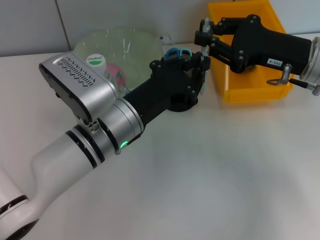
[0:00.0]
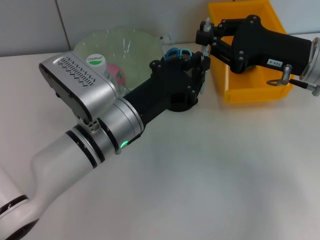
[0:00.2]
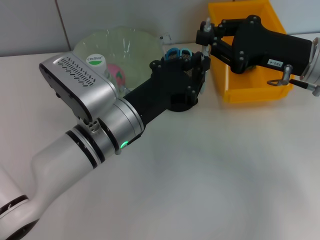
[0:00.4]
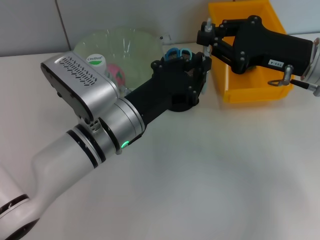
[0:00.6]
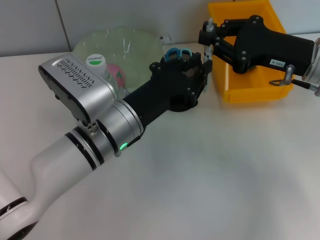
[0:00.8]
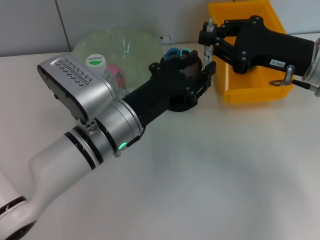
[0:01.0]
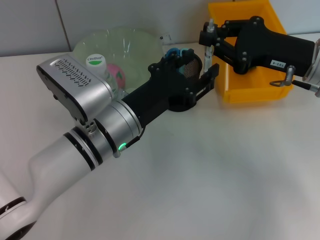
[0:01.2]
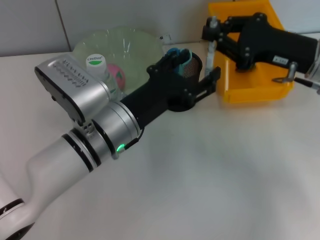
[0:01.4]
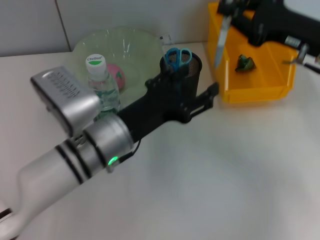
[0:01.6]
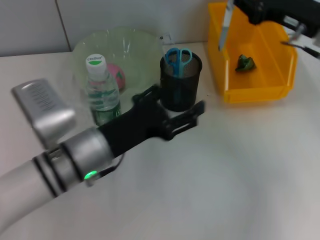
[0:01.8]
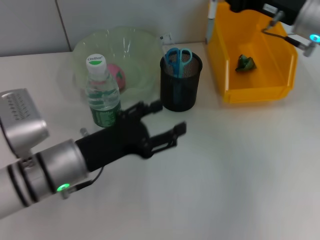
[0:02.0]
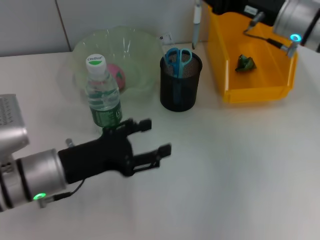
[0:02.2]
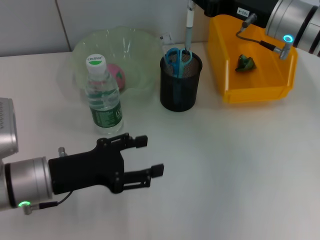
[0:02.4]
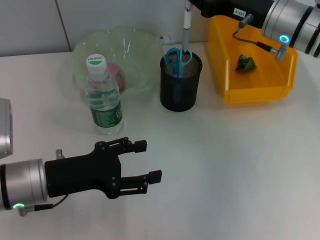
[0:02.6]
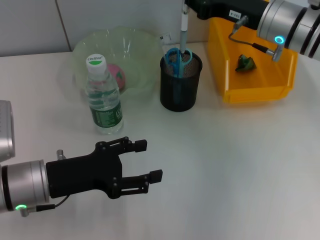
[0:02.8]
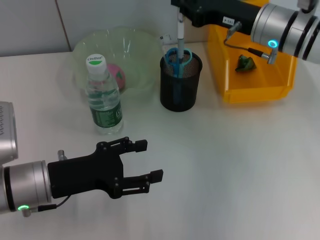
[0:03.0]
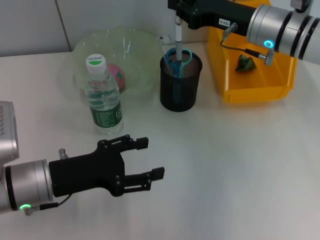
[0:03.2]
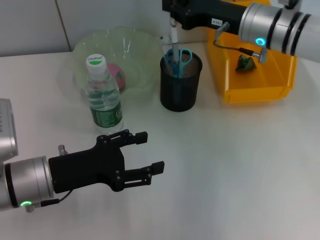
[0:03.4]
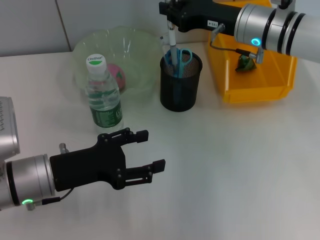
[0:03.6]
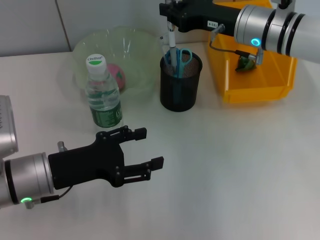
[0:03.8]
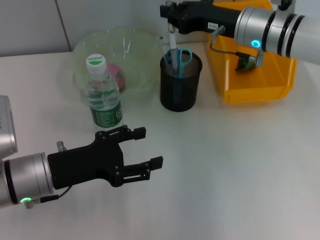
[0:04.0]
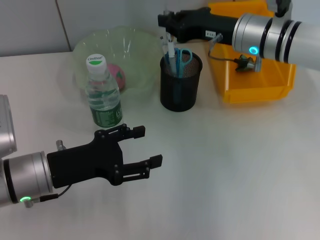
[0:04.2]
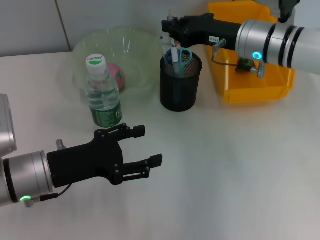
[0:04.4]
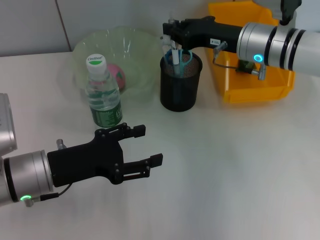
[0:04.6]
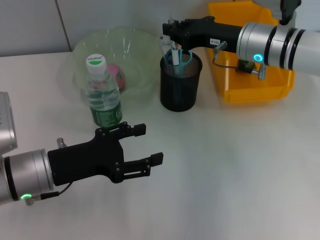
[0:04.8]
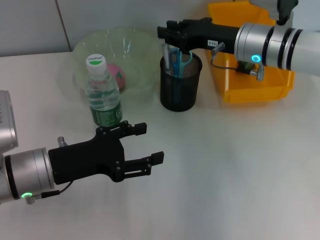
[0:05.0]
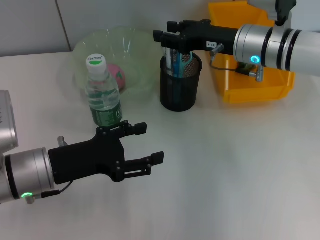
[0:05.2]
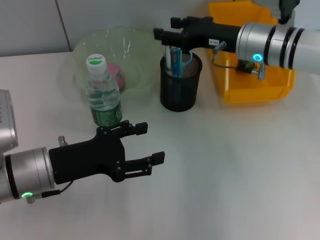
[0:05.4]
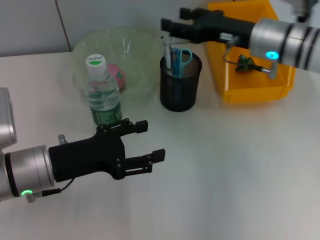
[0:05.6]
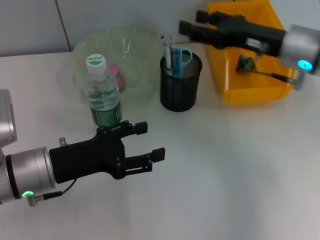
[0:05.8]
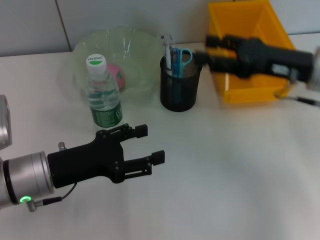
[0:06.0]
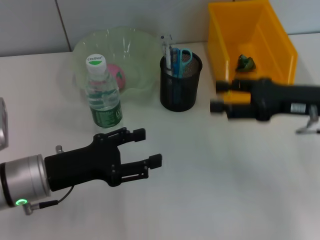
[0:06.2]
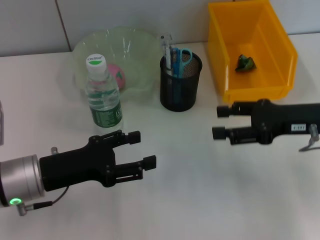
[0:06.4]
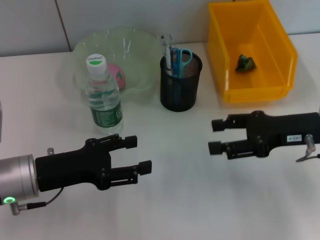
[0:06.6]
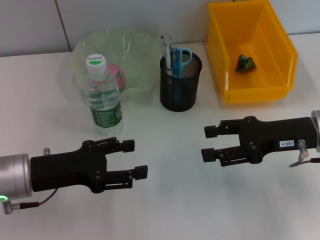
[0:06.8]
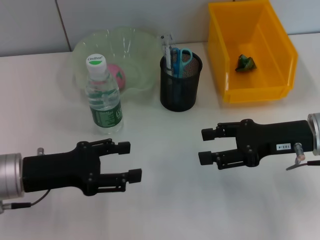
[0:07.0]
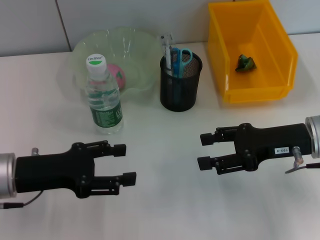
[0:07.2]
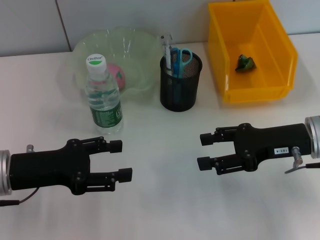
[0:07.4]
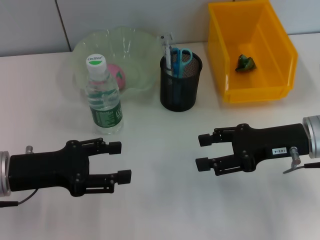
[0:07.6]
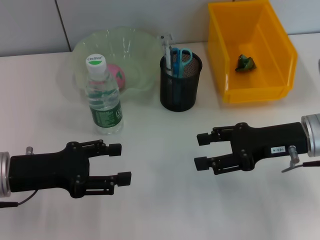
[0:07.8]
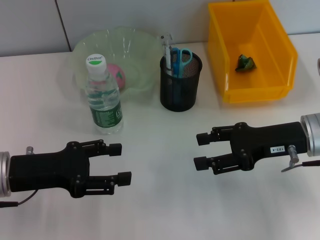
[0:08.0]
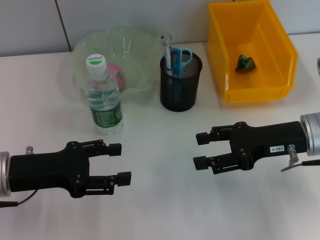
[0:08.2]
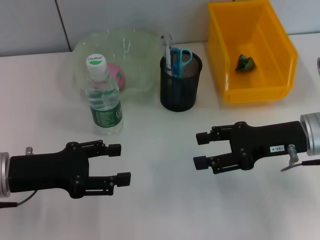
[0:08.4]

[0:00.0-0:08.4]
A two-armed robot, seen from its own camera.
Step, 0:01.6 to 0:05.2: Place the gray spring-action pen into the pen holder with the right hand.
0:00.0 to 0:01.4: The left gripper opens its fingers.
0:01.4 to 0:02.8: The left gripper shifts some 10 cm to the left. The right gripper travels forward by about 5 cm.
0:02.8 to 0:04.2: The grippers move only a little.
0:04.2 to 0:05.6: The right gripper opens up.
0:05.6 to 0:07.0: The right gripper travels backward and to the right by approximately 10 cm.
0:07.0 to 0:08.4: There are only small adjustments of the grippers.

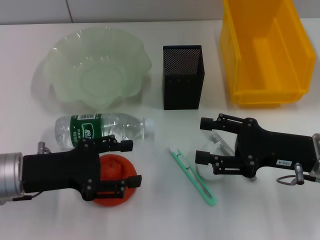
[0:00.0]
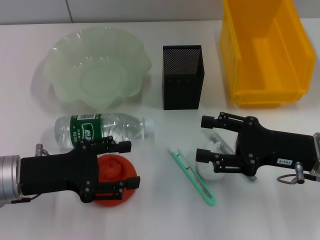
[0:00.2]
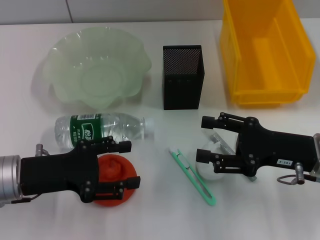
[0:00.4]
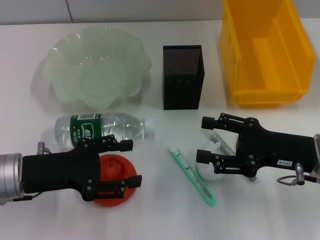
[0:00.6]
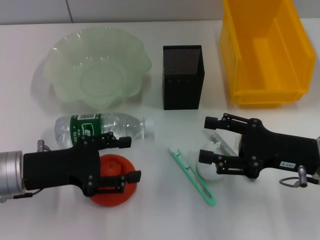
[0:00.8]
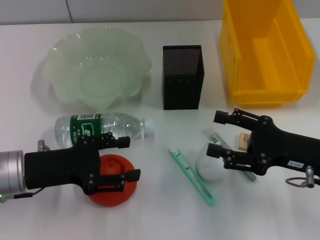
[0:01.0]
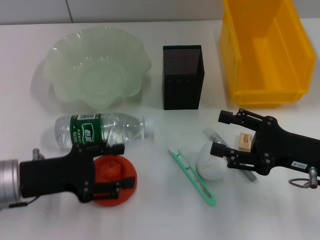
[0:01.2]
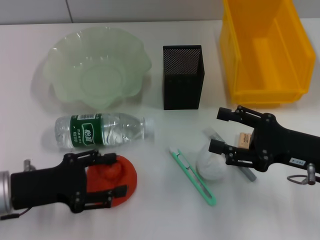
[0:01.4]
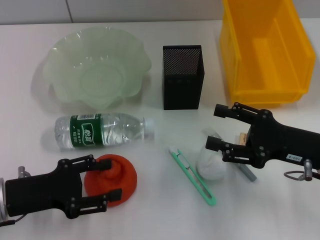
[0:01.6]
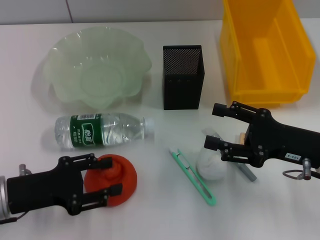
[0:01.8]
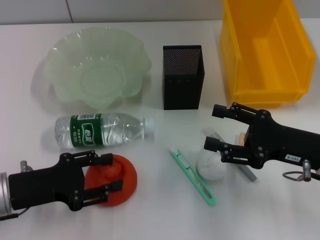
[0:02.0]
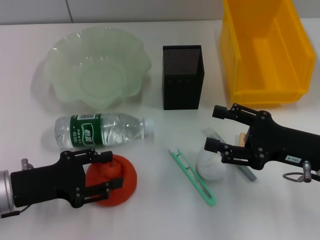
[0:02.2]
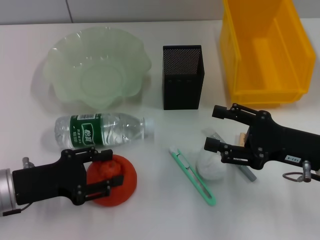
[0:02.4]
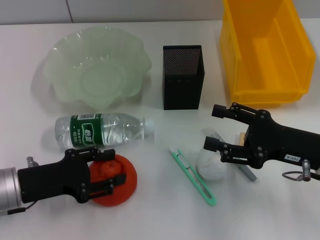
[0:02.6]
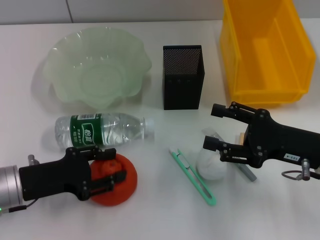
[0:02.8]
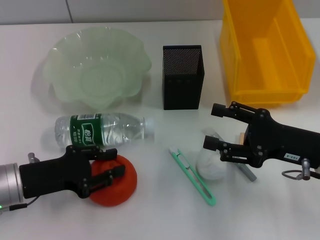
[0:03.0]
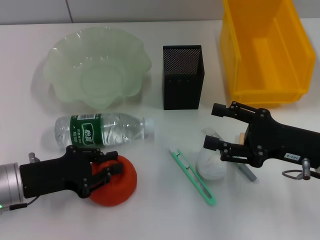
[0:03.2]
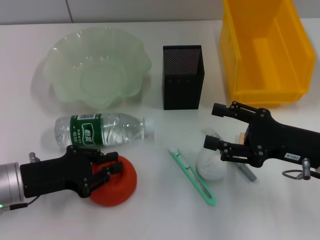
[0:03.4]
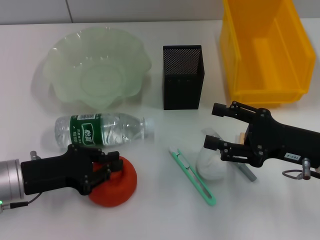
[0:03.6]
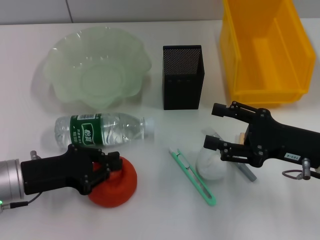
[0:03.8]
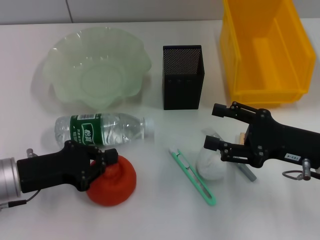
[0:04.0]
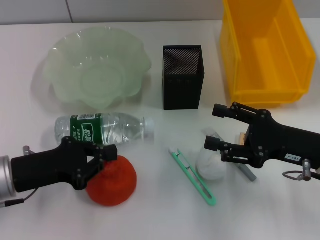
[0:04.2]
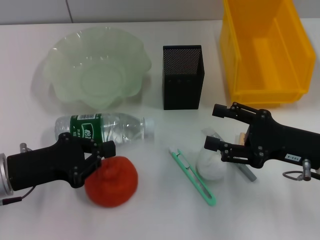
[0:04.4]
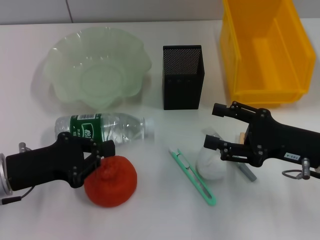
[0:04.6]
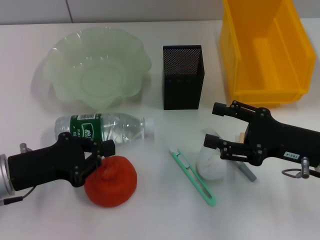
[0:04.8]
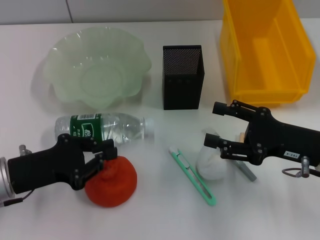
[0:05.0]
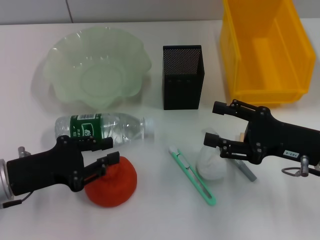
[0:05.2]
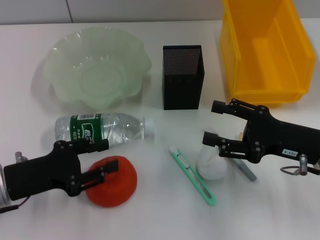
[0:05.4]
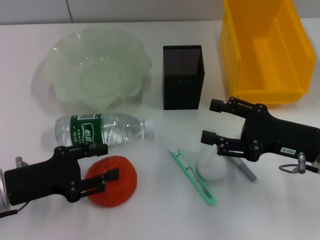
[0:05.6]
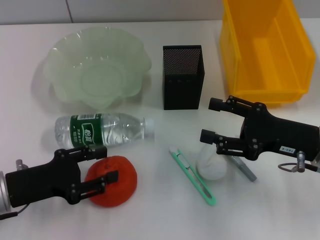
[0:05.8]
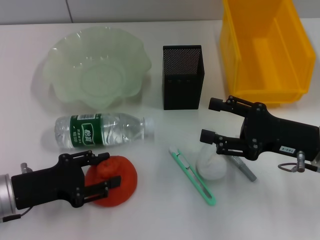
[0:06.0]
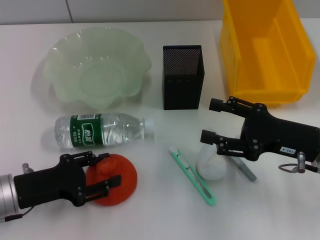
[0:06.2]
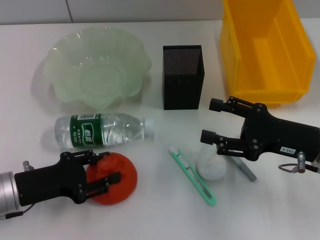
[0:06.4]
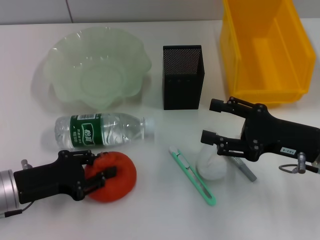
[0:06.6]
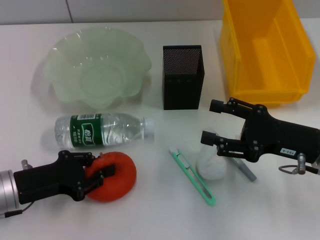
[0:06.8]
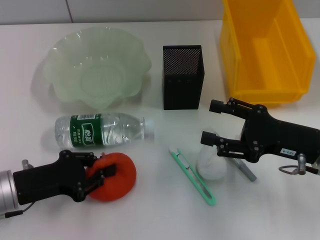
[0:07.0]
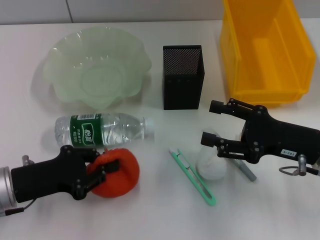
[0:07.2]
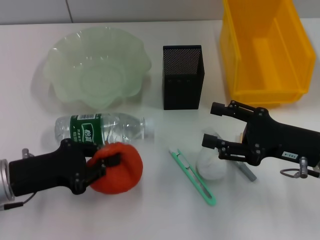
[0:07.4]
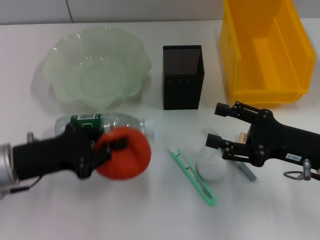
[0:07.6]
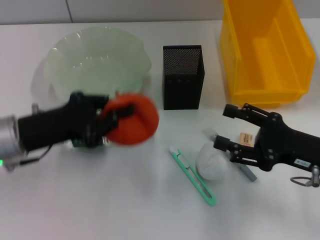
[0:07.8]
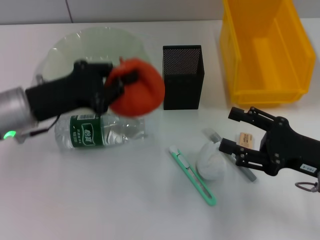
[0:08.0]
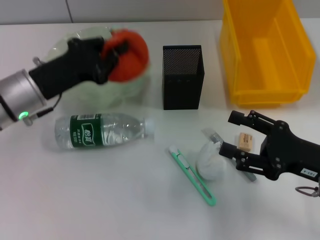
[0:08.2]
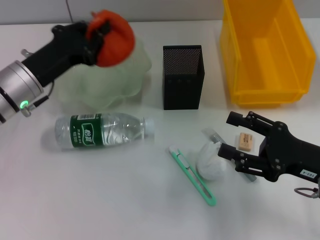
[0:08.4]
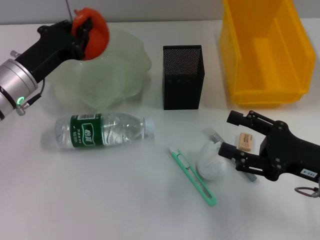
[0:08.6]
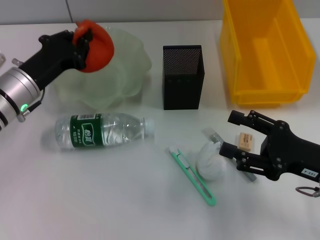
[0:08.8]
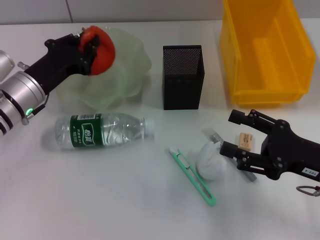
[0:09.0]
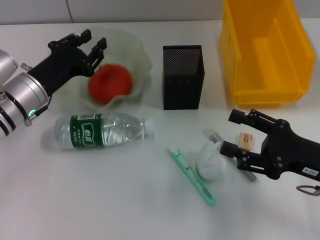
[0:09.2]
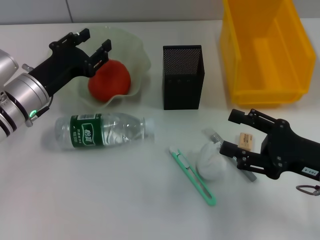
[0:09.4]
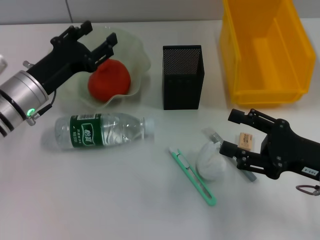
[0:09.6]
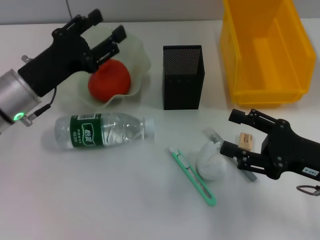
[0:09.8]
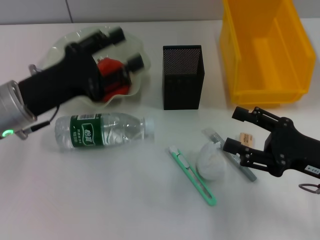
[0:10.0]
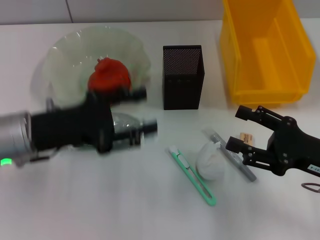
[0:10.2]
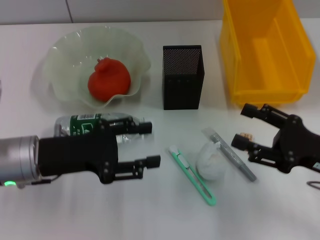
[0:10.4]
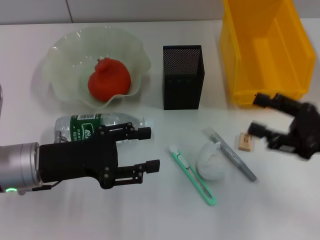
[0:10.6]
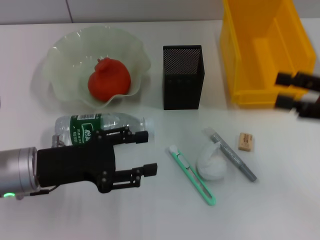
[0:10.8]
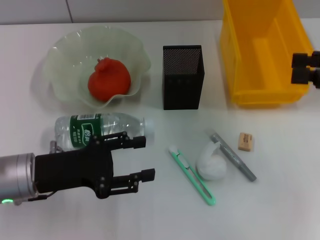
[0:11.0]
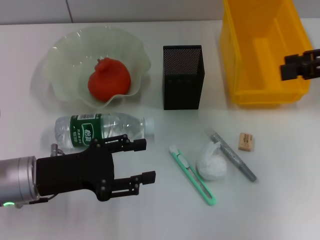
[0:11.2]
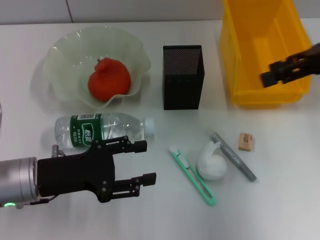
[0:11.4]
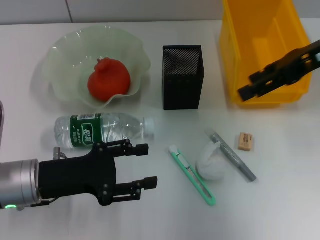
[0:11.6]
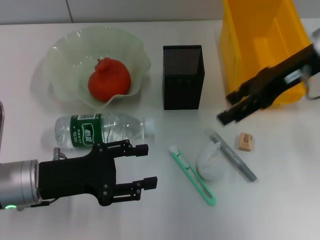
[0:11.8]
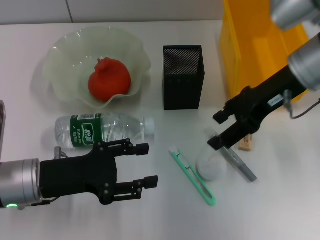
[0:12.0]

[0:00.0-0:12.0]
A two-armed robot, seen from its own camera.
Step, 0:00.0 to 0:06.6: Grab the orange with the left hand.
Step, 0:07.0 to 0:09.2: Place the orange into the fruit bowl with the left hand.
0:00.0 to 0:03.0: The grippers stay close to where they were, moving slightly.
0:03.0 to 0:04.4: The left gripper closes.
0:04.4 to 0:06.0: The left gripper opens up.
0:06.0 to 0:07.6: The left gripper closes its fingers.
0:07.6 to 0:09.0: The left gripper heads forward, covering approximately 10 cm.
0:09.0 to 0:10.4: The left gripper heads backward, covering about 10 cm, and opens.
0:10.4 to 0:12.0: The right gripper moves forward, upward and to the left, roughly 20 cm.

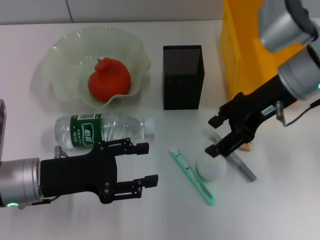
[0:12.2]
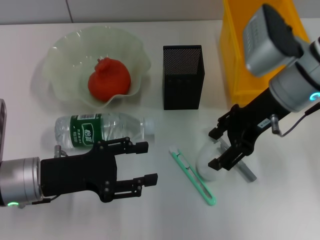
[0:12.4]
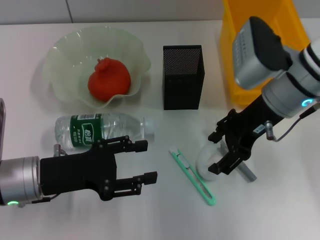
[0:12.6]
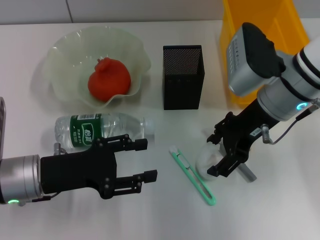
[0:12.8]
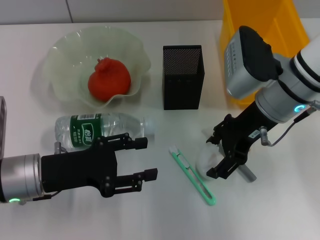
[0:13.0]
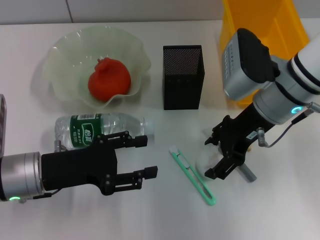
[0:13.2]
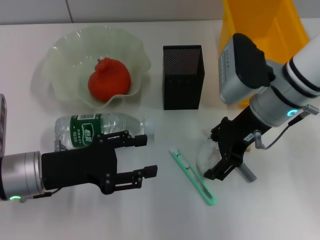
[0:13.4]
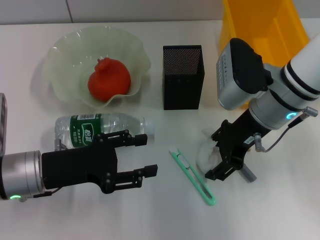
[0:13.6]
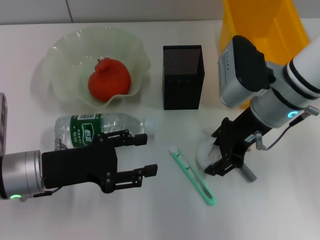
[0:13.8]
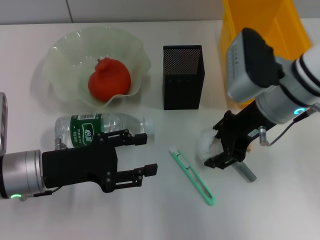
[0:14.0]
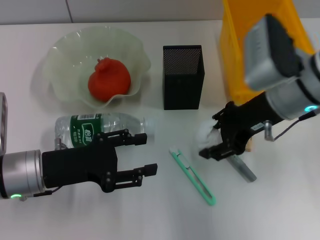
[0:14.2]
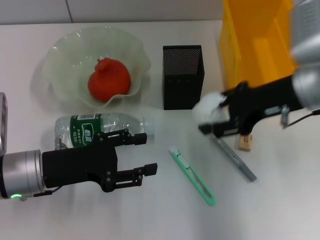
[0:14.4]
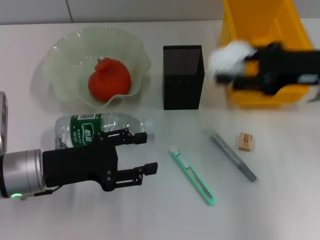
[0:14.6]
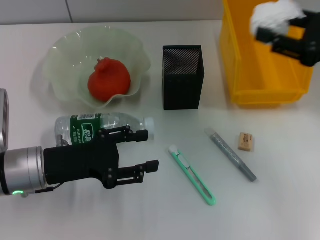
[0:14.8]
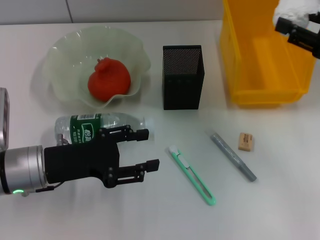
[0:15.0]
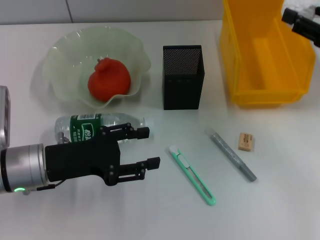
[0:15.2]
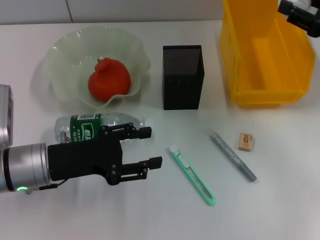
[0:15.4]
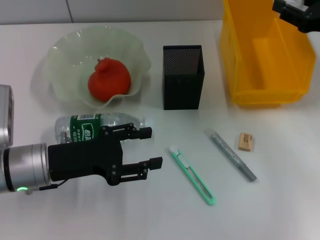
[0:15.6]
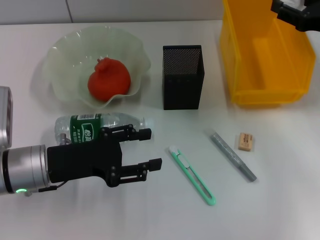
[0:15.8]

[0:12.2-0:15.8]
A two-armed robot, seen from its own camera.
0:12.2 to 0:14.0: The right gripper closes up.
0:14.0 to 0:15.8: The right gripper shifts roughly 15 cm to the right.
